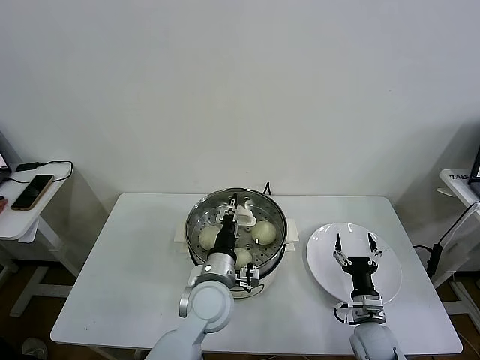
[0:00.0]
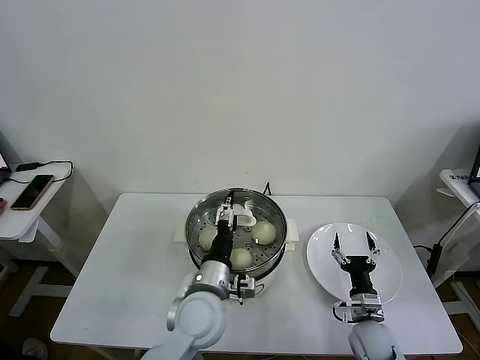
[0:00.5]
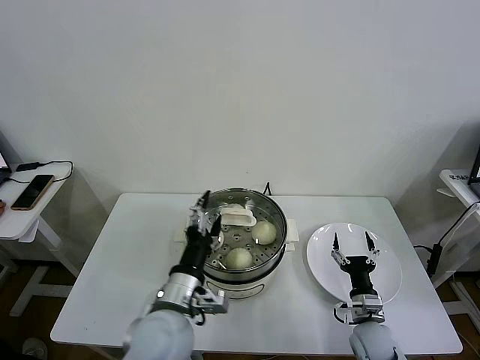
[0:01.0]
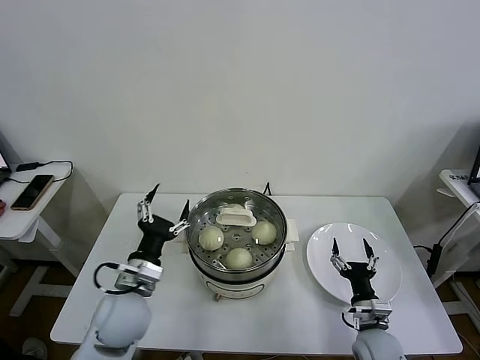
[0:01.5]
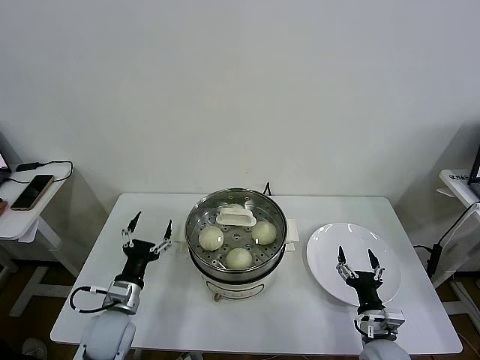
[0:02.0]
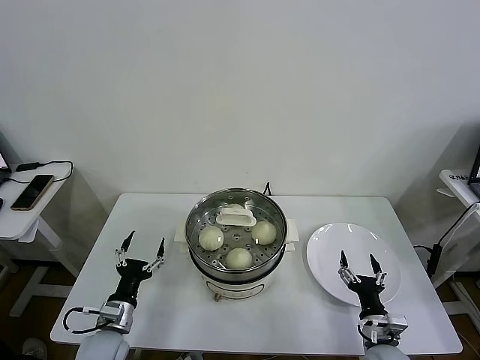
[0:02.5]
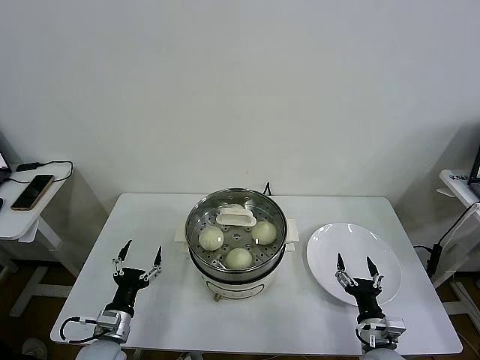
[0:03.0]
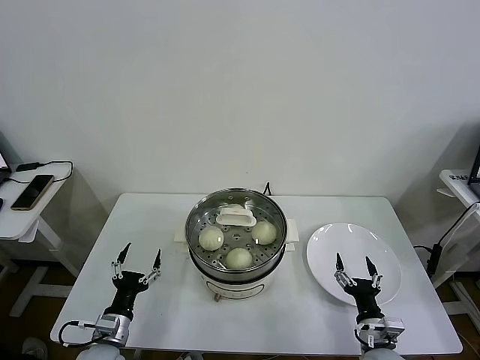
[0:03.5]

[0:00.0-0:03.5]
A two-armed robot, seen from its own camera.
Task of the whole recording: take steamed baozi put them in steamer then cover it.
0:00.0 to 0:02.0: The left gripper moves to the left, about 20 cm, and opens up.
0:02.0 to 0:03.5: The left gripper goes roughly 10 cm downward and backward.

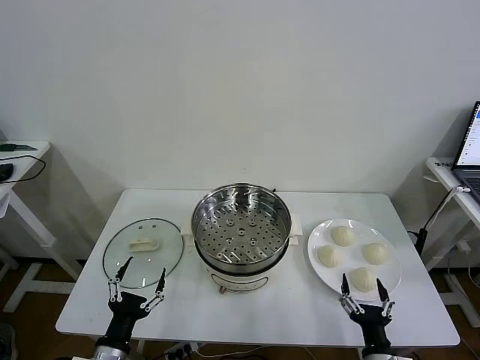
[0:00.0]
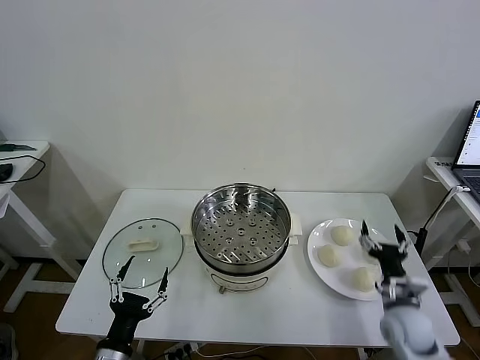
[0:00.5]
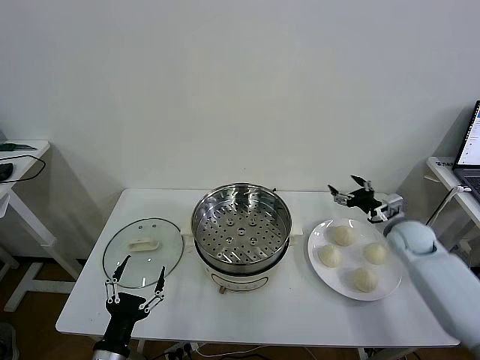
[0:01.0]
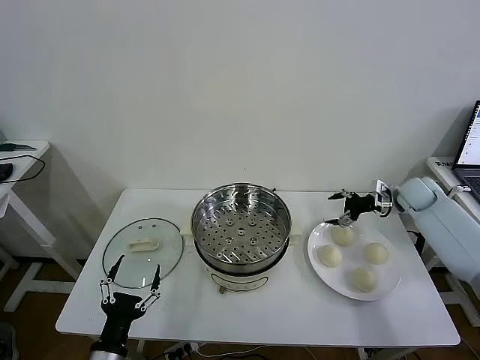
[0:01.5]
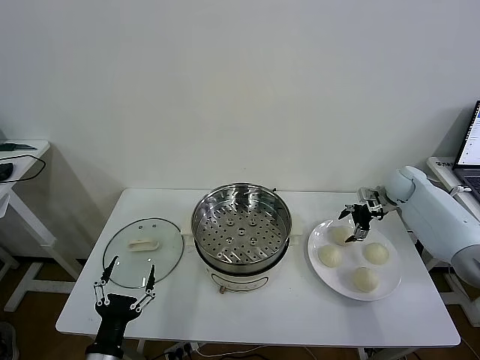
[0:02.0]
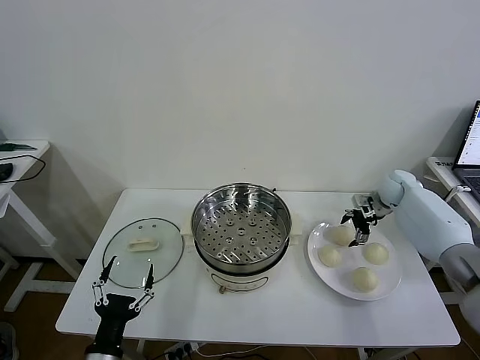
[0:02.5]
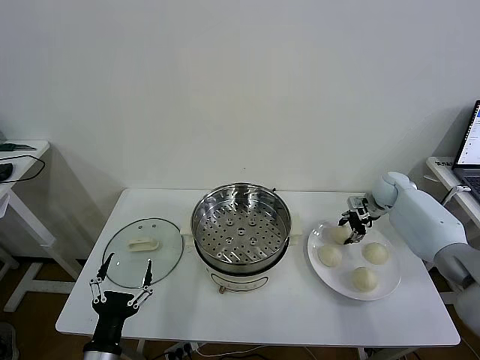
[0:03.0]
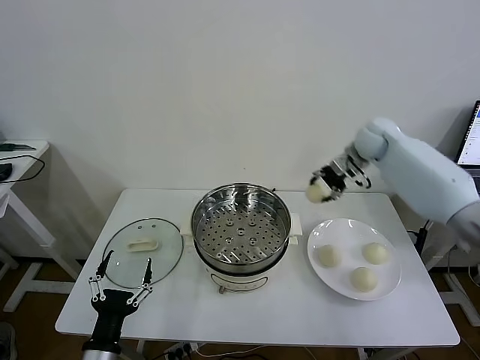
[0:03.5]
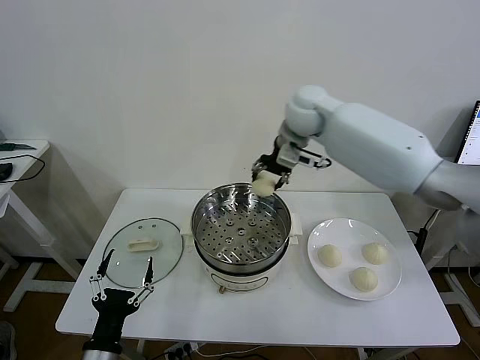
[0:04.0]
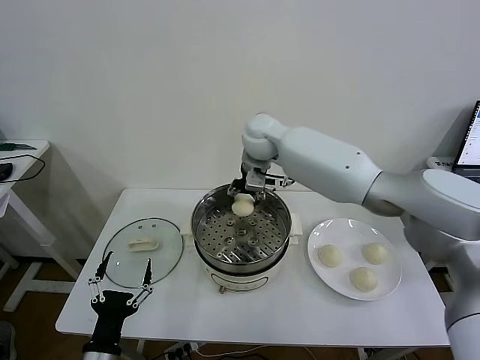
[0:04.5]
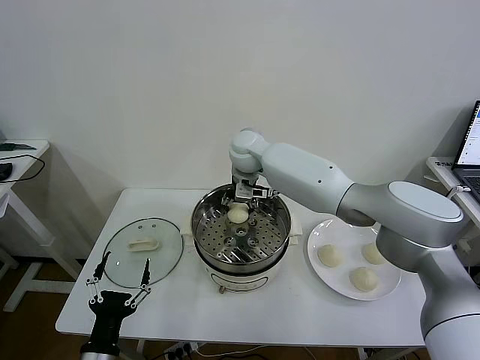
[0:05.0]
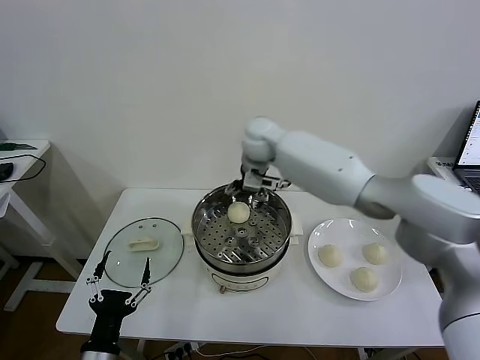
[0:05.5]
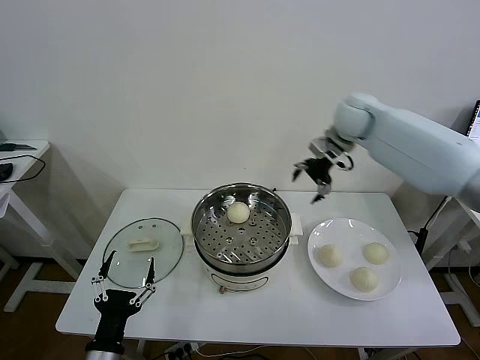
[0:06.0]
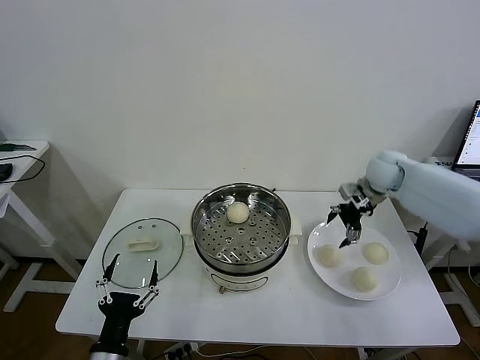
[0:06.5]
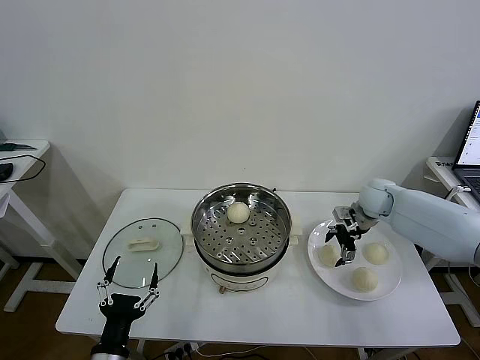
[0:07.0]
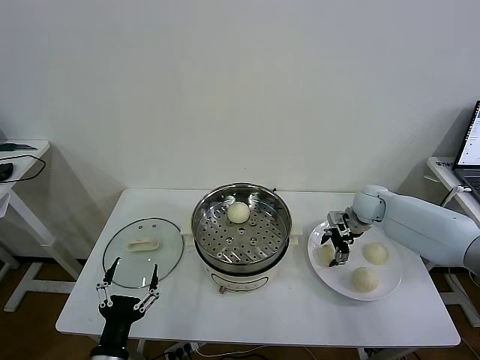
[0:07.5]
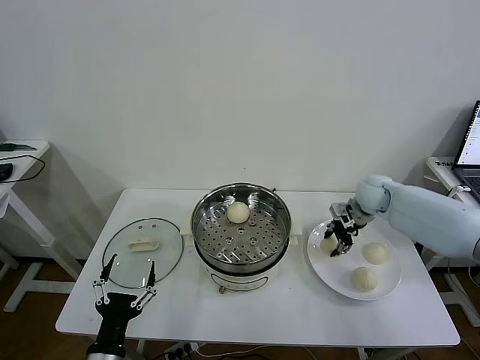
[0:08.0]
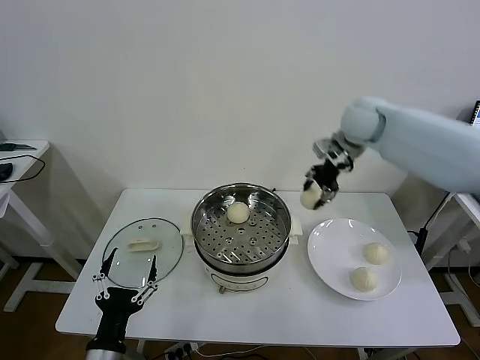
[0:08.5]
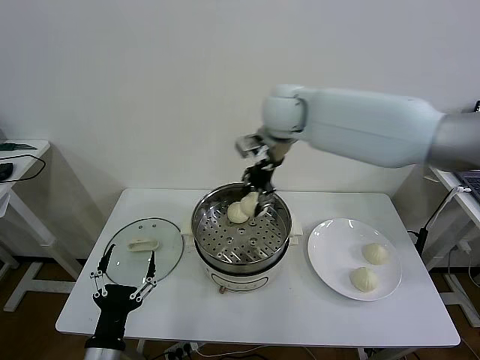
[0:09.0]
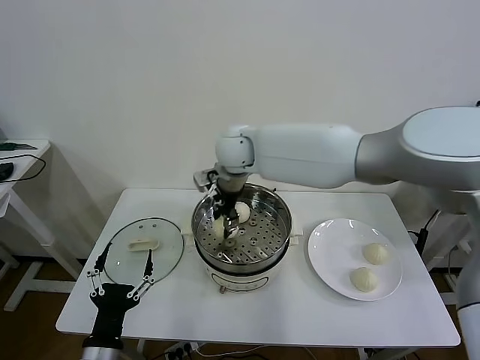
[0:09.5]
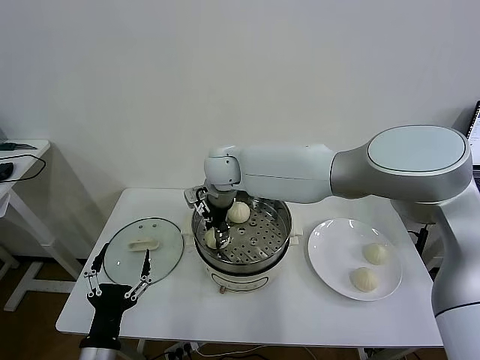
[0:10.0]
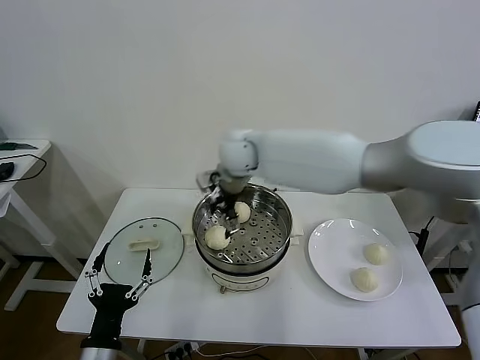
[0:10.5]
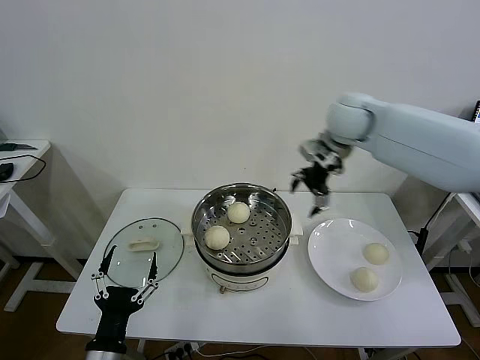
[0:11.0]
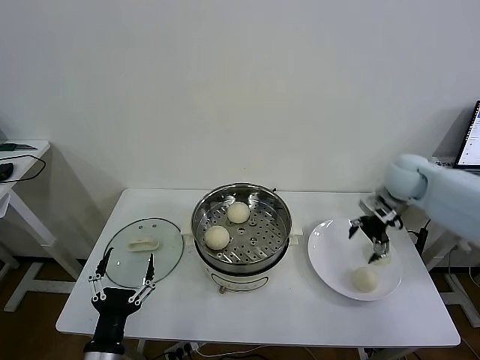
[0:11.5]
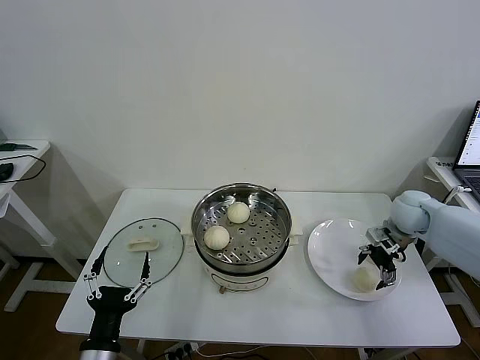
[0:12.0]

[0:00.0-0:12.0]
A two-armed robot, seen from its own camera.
Task of the whole recording: take steamed baozi put them in steamer then cover it.
Step, 0:00.0 to 0:02.5: Grasp the baozi in the plate with right gripper.
Step, 0:03.0 to 0:05.0: Place the baozi on the steamer with right gripper.
Step, 0:05.5 to 0:07.5: Grasp the baozi in the plate with right gripper.
Step, 0:08.0 to 0:10.0: Place the baozi on the steamer with right gripper.
0:02.0 to 0:04.0: The right gripper moves to the left and upward, roughly 40 cm, and closes its fingers.
0:04.0 to 0:06.0: The right gripper goes about 25 cm to the right, and opens up.
0:06.0 to 0:08.0: The right gripper travels downward by some 10 cm, and closes up.
0:08.0 to 0:10.0: The right gripper is displaced to the left by about 35 cm, and opens.
0:10.0 to 0:12.0: The right gripper moves to the right, approximately 40 cm, and opens.

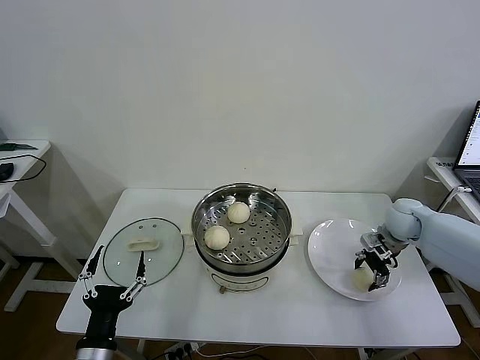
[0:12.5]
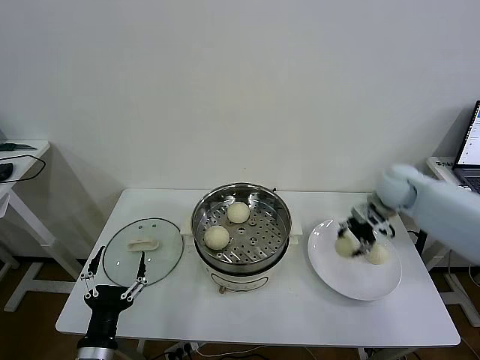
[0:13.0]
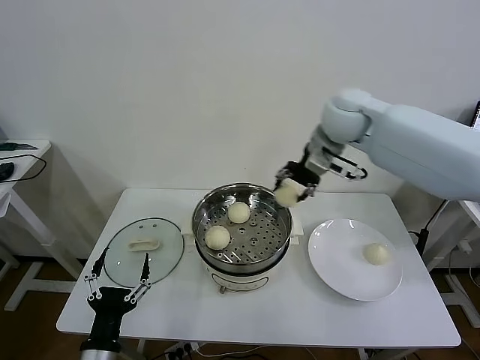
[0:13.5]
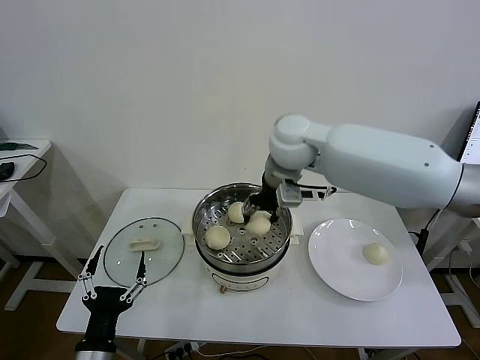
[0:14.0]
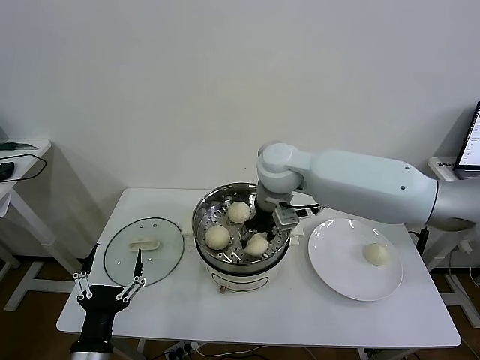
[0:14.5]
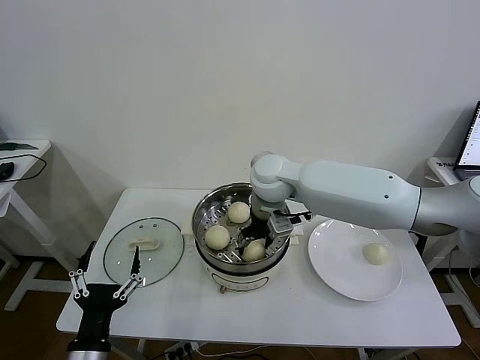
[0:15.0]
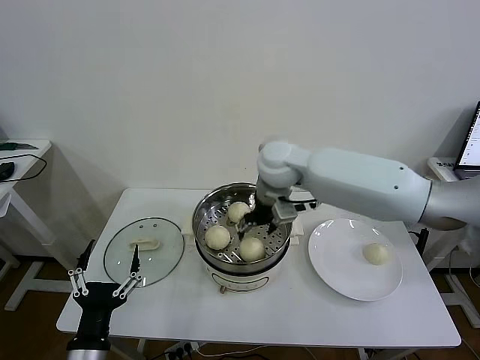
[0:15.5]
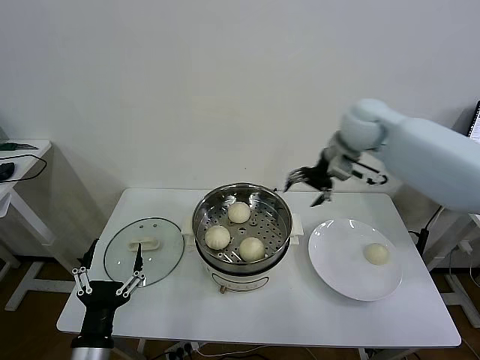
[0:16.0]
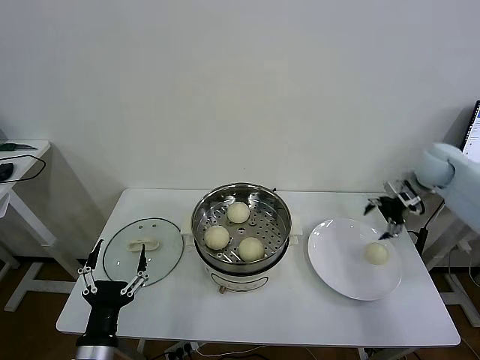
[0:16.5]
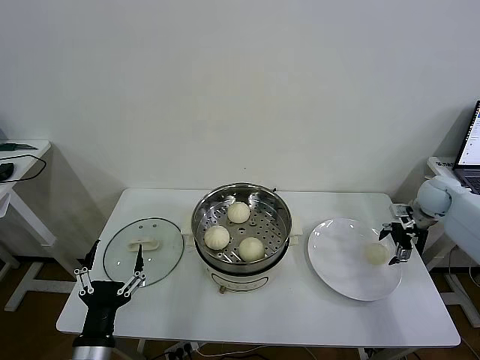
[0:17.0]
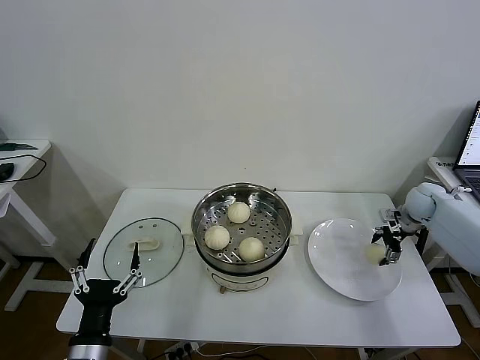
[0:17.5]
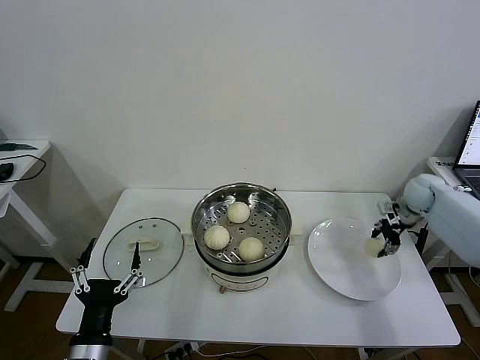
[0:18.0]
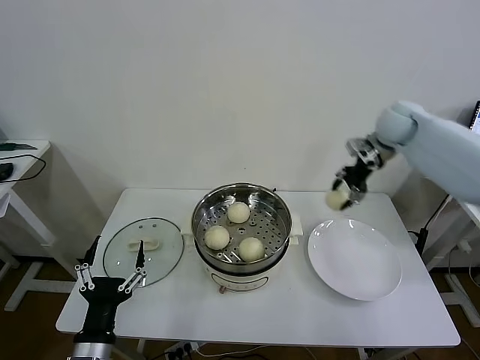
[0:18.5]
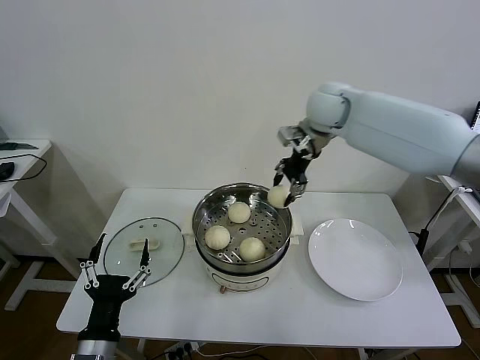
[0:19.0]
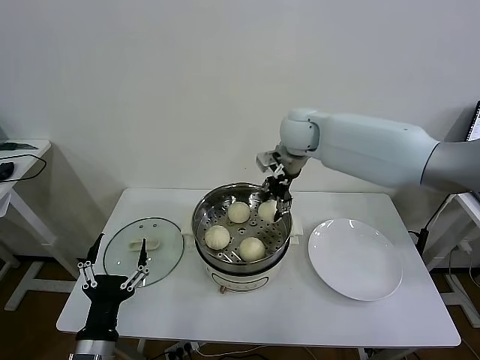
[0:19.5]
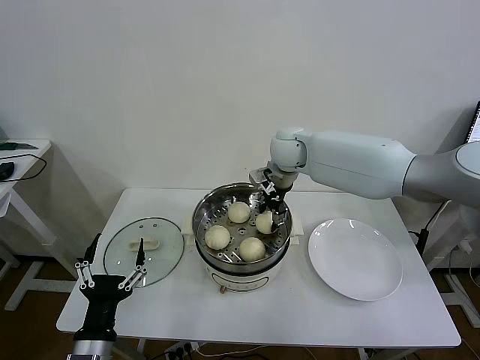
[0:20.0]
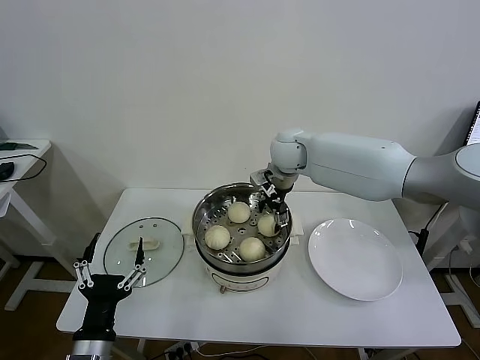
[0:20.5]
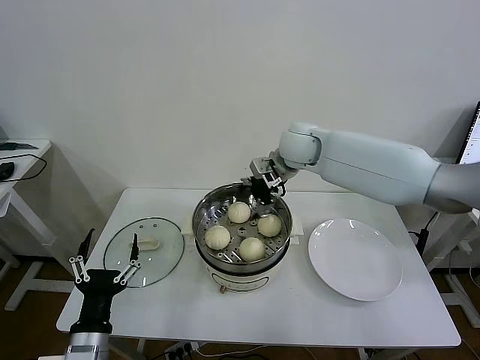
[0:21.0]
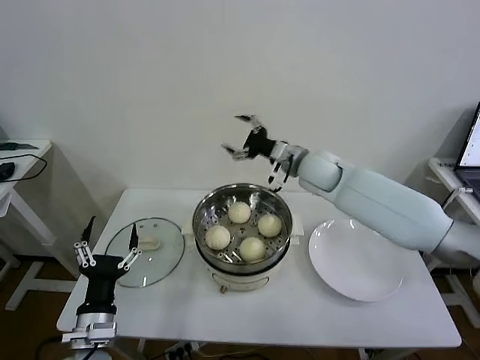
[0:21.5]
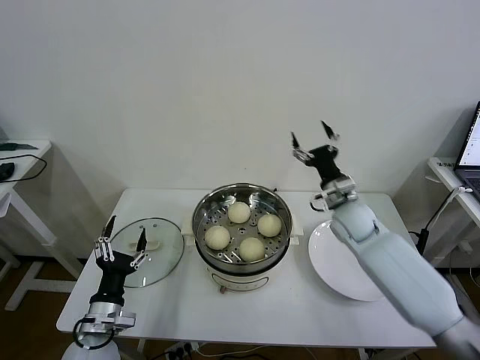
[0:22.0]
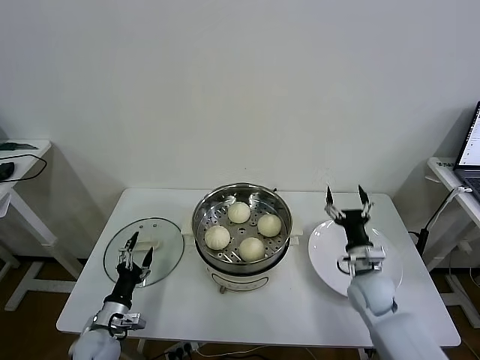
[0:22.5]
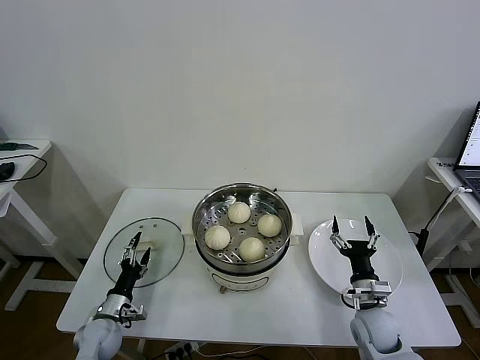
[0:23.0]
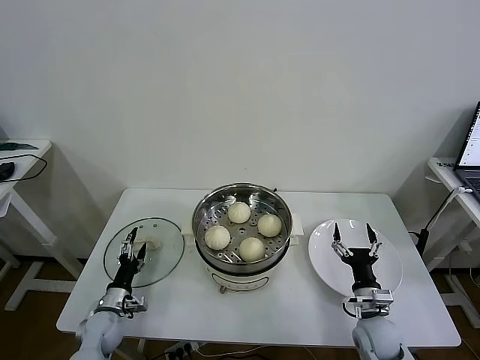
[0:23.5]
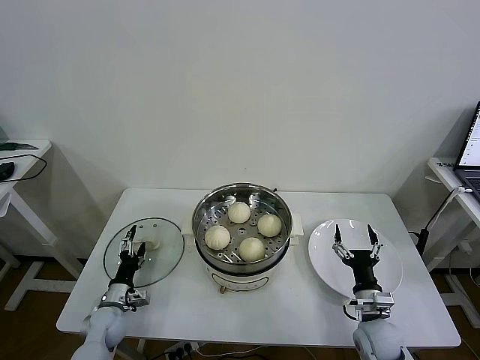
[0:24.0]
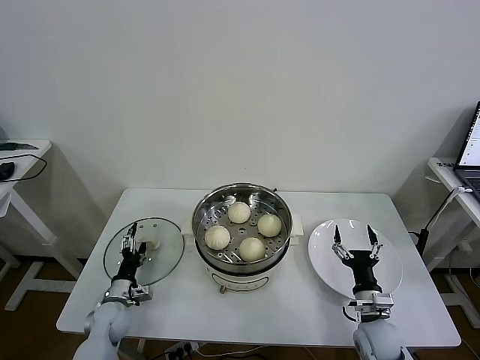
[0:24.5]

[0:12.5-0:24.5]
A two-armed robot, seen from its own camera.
Task of the whole recording: take steamed baozi put them in steamer then cover it.
Step, 0:13.0 to 0:15.0: Place the baozi on the steamer with right gripper.
Step, 0:15.5 to 0:17.5: Grasp the baozi in the plate with right gripper.
Step, 0:18.0 to 0:20.5: Place the baozi on the steamer with right gripper.
0:12.5 to 0:14.5: The right gripper shifts about 35 cm to the left and upward.
0:14.5 to 0:16.5: The right gripper moves to the right, about 40 cm, and opens its fingers.
0:16.5 to 0:18.5: The right gripper moves to the left, upward and forward, approximately 20 cm, and closes.
0:18.5 to 0:20.5: The right gripper travels to the left by approximately 20 cm, and opens its fingers.
0:20.5 to 0:22.5: The right gripper shifts some 40 cm downward, backward and to the right. Meanwhile the left gripper heads downward, forward and to the left, covering approximately 20 cm.
0:22.5 to 0:24.5: The right gripper shifts approximately 10 cm backward and downward, while the left gripper shifts about 10 cm forward.
